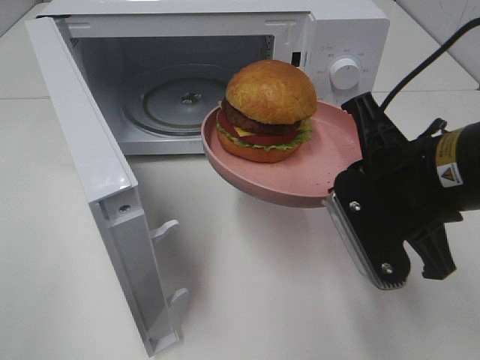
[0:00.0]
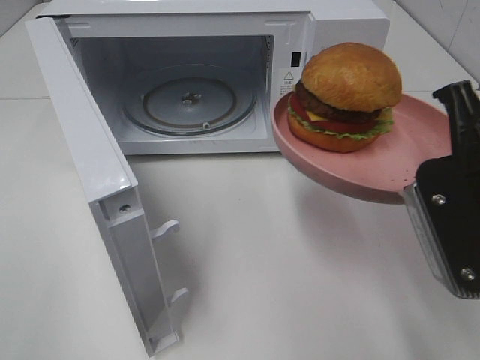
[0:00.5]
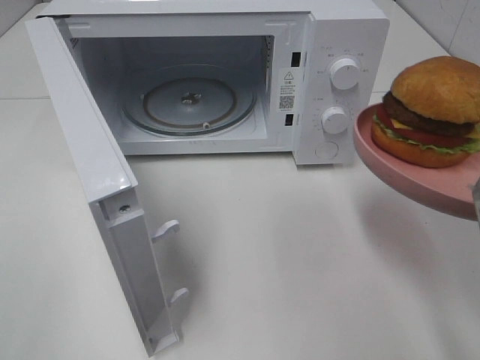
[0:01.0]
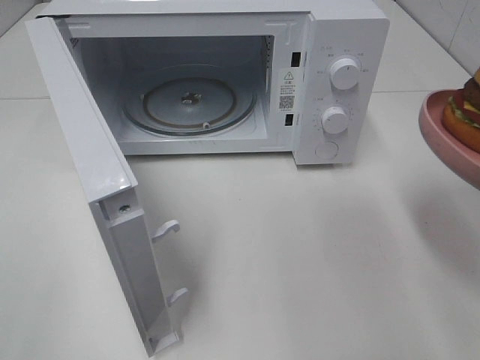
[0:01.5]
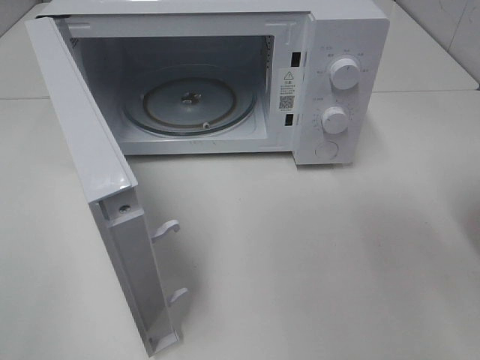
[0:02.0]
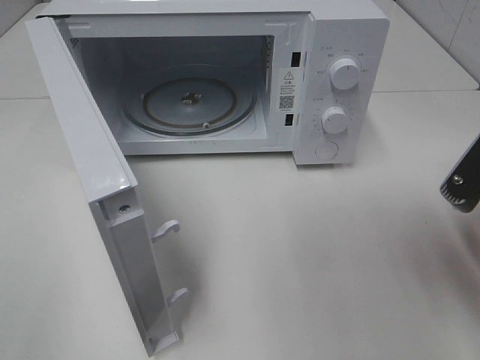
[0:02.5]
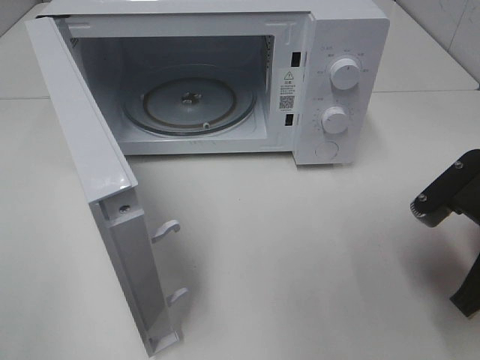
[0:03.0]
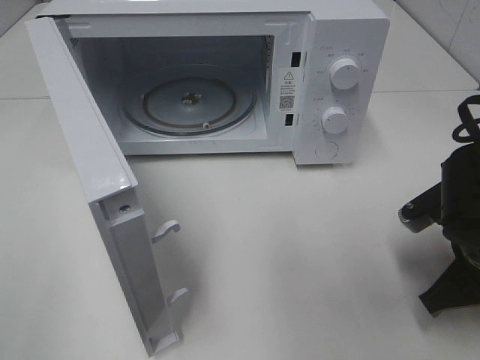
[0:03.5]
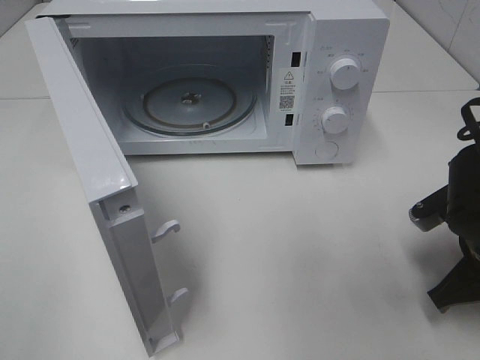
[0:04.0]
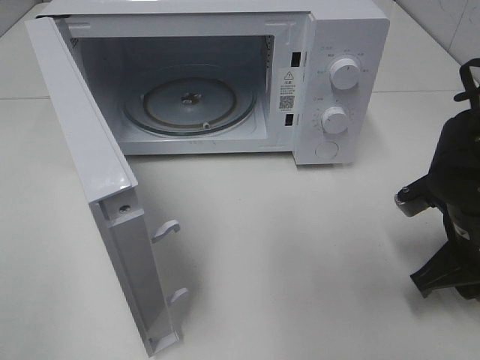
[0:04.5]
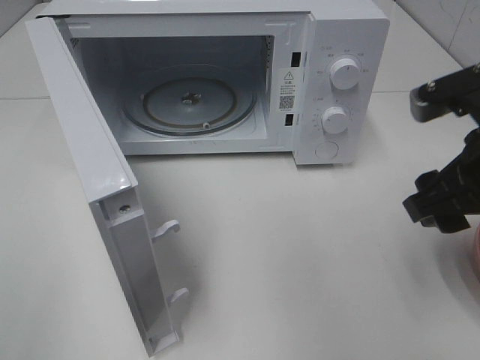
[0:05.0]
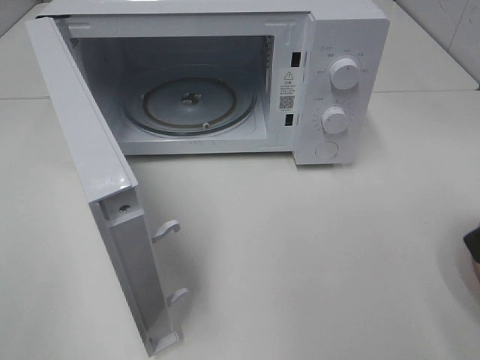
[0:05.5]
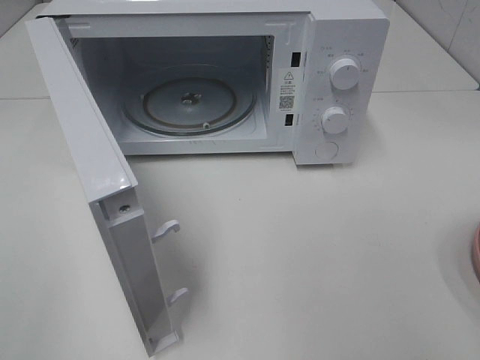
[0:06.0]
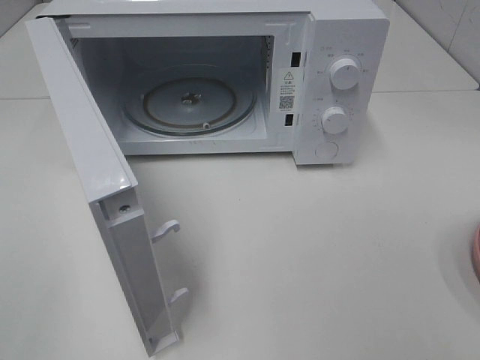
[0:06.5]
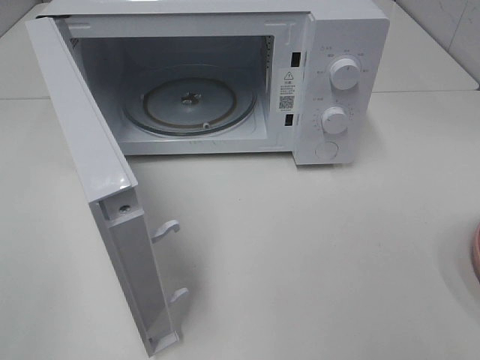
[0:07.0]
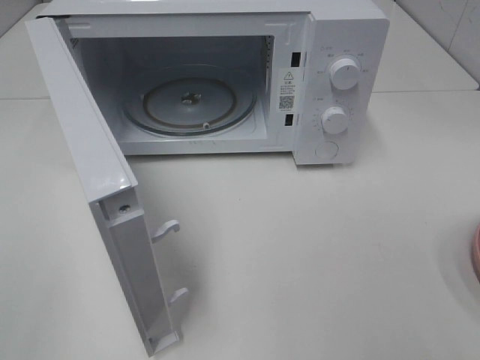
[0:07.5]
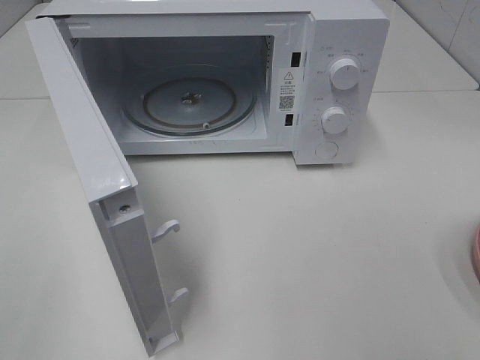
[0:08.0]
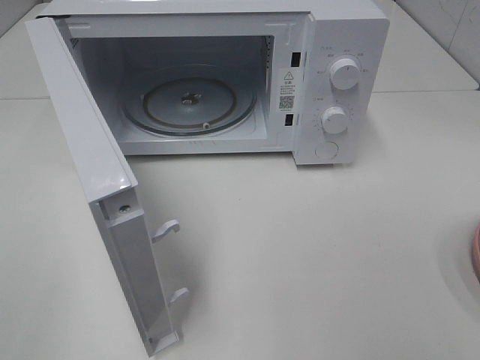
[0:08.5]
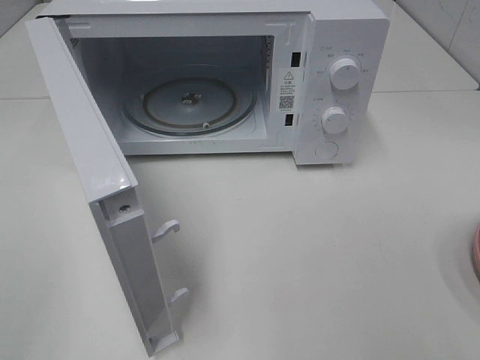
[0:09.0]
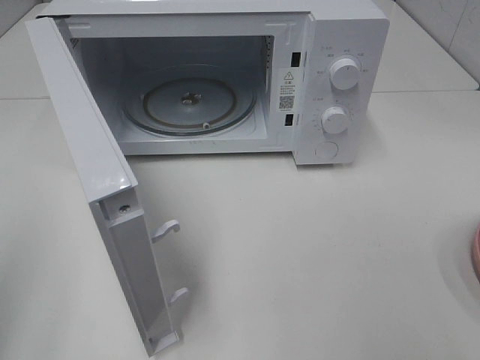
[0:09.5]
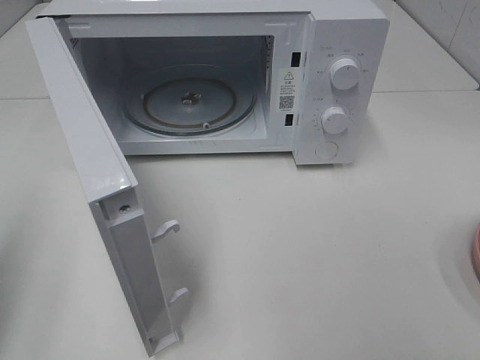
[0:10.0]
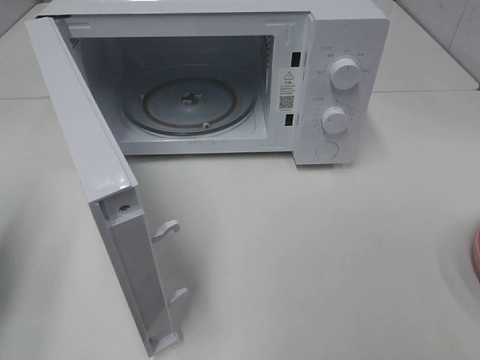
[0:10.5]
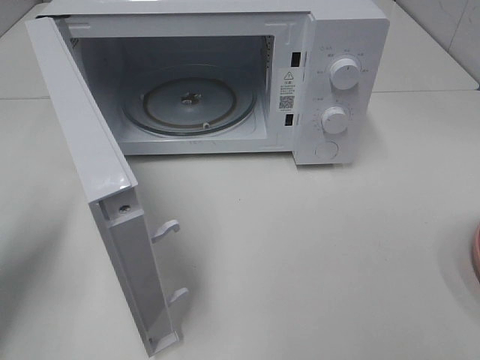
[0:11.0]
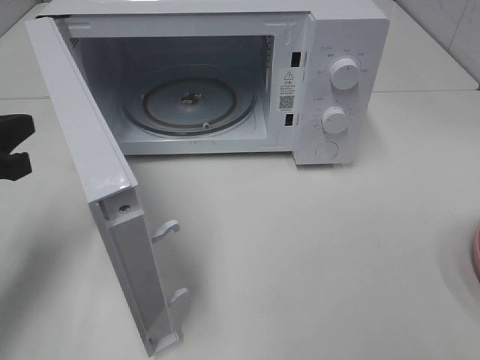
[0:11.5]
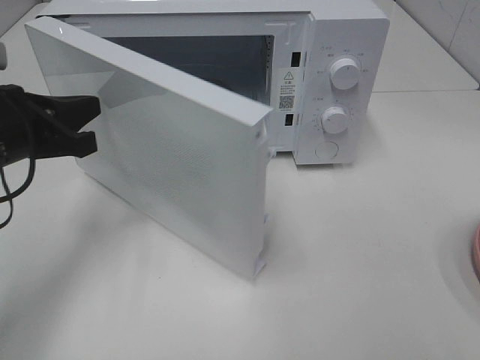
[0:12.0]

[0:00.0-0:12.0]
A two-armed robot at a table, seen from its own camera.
Task of the whole recording: Heat the burger.
Step, 0:00.0 to 0:04.0: Right hand: place the plate on the table.
0:00.0 to 0:02.0: The right gripper shifts some 10 cm to the right and backward.
0:02.0 to 0:04.0: The right gripper is displaced downward and forward by about 15 cm.
0:04.0 to 0:06.0: The right gripper is displaced upward and backward by about 25 cm, and opens up.
0:08.0 to 0:10.0: The left gripper travels forward by about 15 cm, and closes up.
0:10.0 to 0:12.0: The left gripper heads forward, to the right and downward, covering some 20 cm.

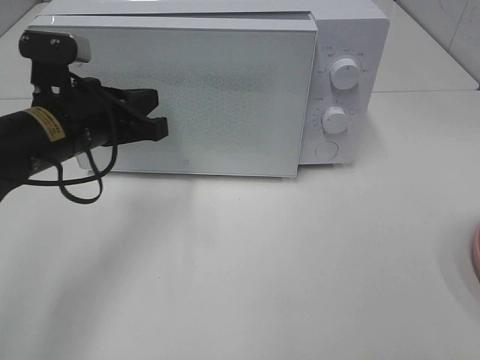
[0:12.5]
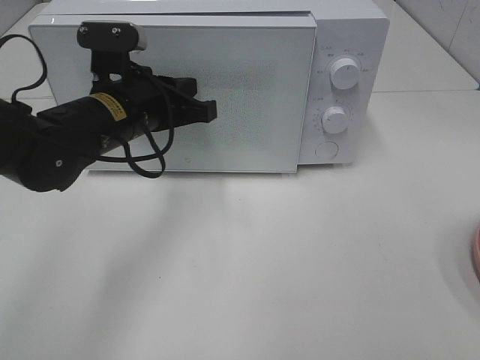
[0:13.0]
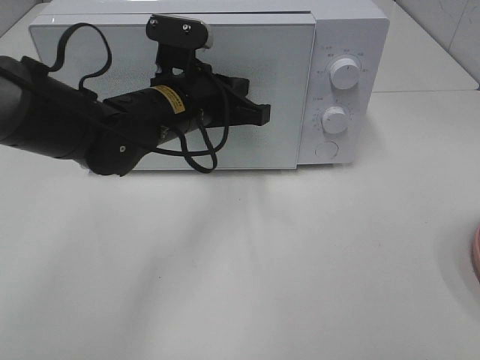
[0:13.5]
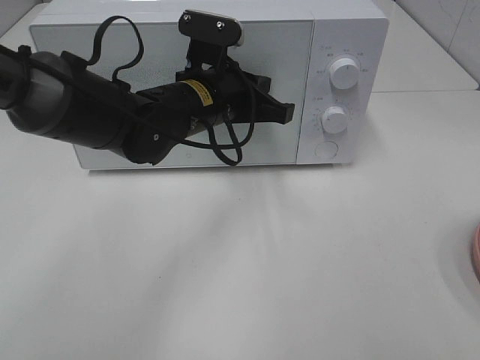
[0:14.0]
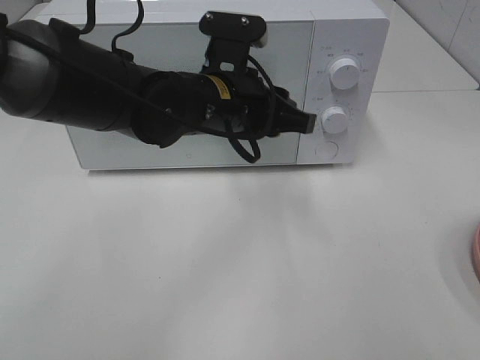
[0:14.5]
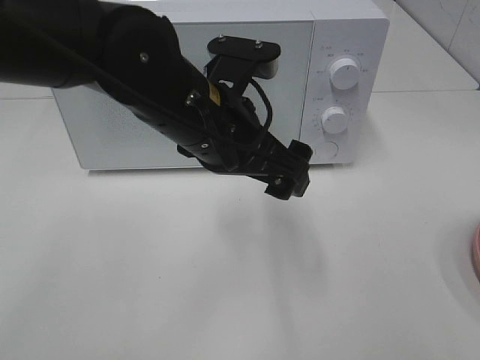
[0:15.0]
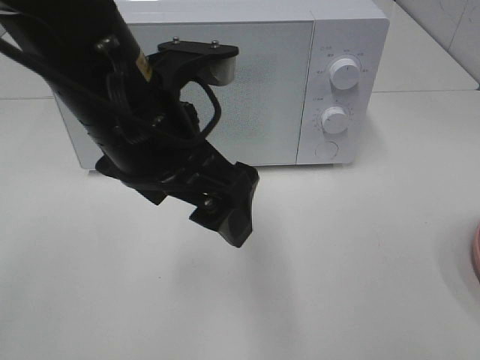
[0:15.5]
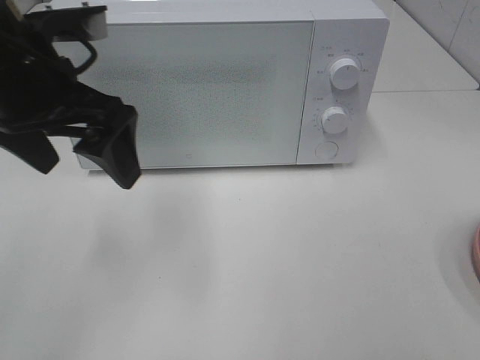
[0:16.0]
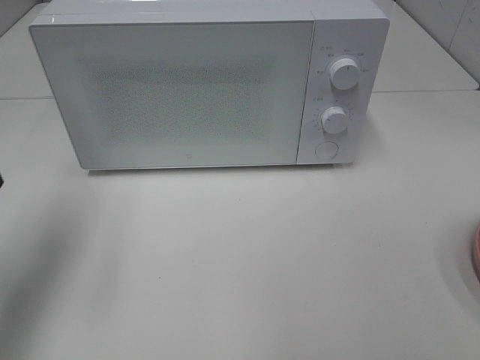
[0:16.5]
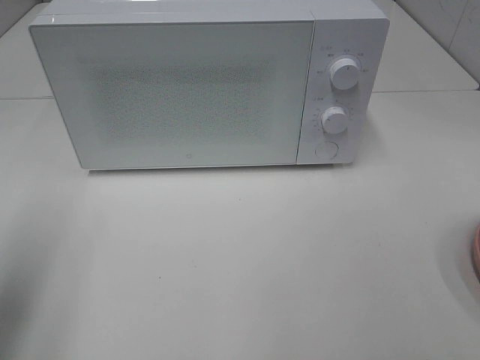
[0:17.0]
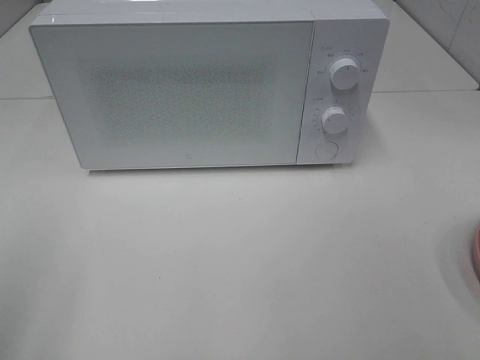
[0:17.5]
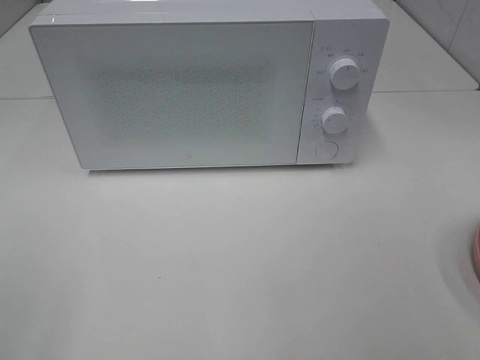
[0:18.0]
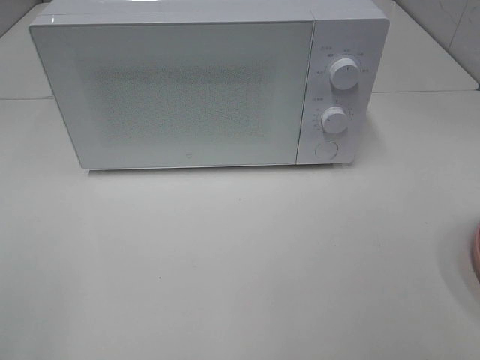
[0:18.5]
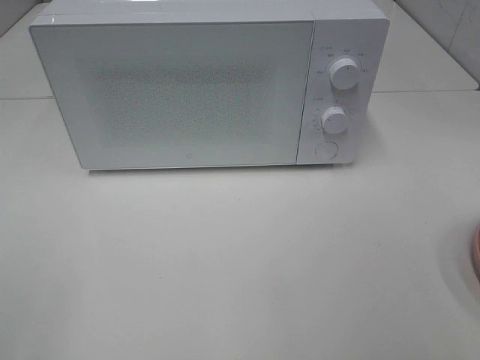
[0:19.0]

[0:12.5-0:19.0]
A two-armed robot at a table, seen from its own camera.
Task of the whole recording: Heat the burger.
0:12.5 to 0:14.5: The left gripper is displaced to the right by some 15 cm, and opens.
0:14.5 to 0:17.0: The left gripper shifts approximately 35 cm to the left and backward, and opens its fingers.
0:17.0 to 0:19.0: The left gripper is displaced backward by roughly 15 cm.
